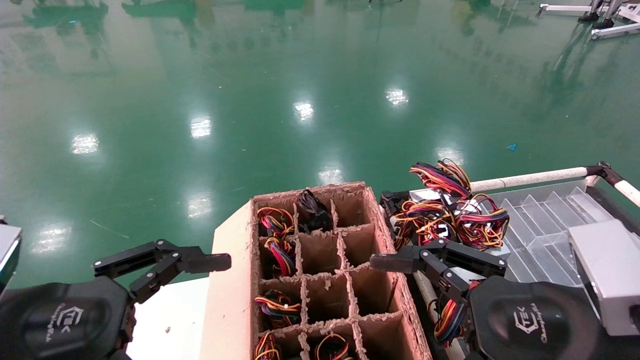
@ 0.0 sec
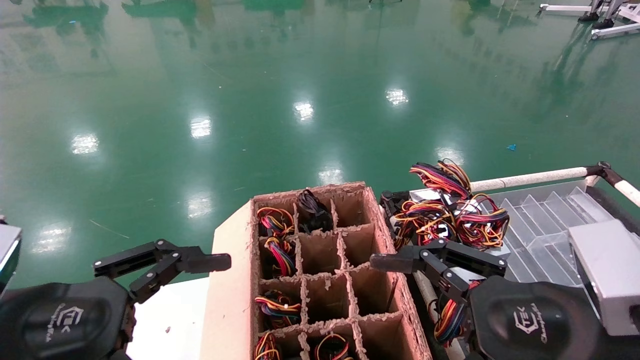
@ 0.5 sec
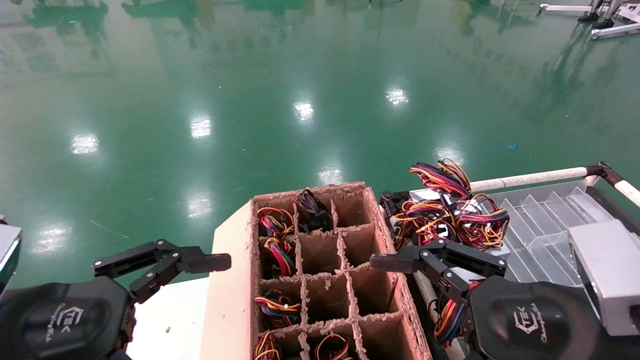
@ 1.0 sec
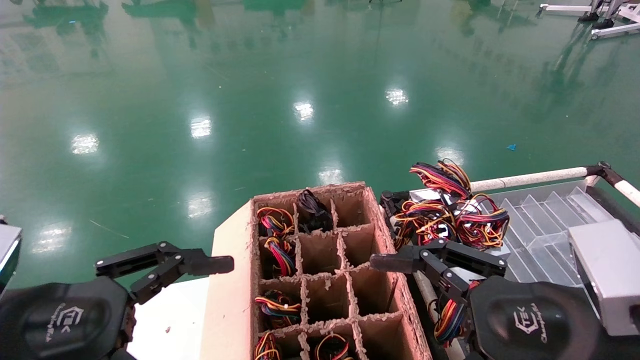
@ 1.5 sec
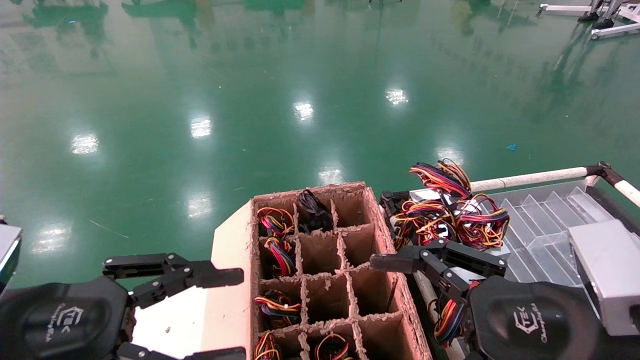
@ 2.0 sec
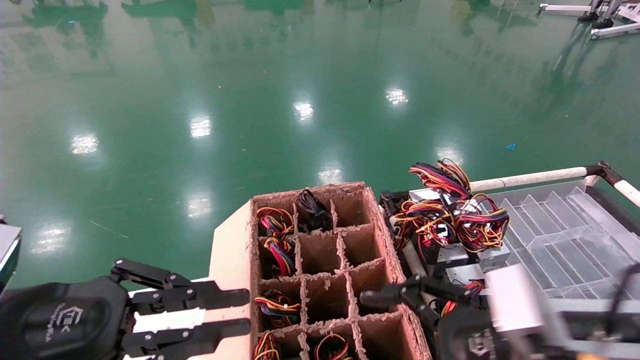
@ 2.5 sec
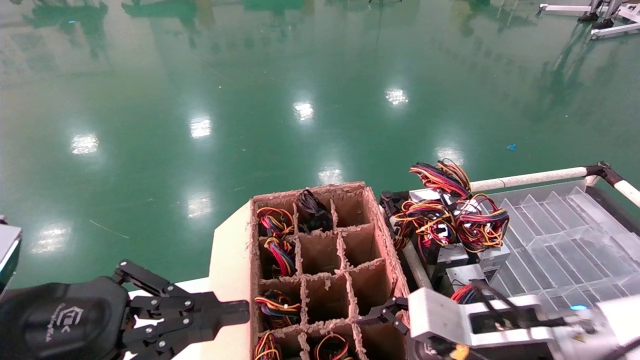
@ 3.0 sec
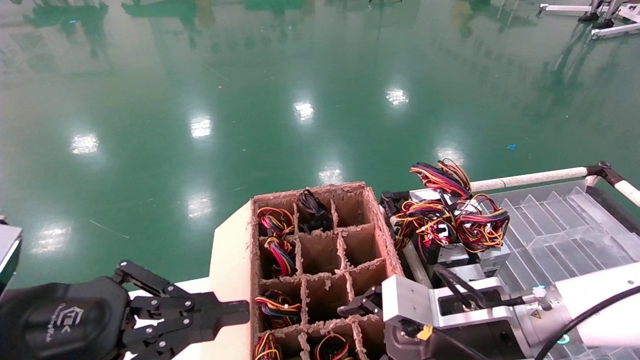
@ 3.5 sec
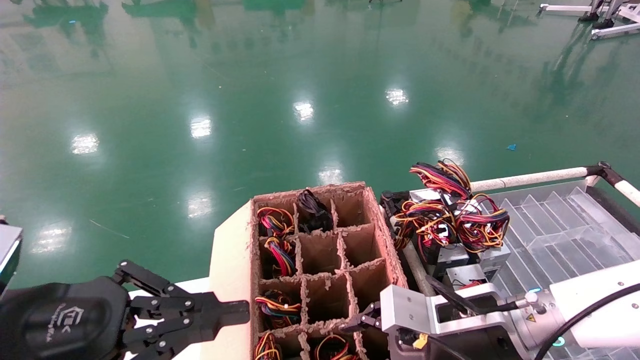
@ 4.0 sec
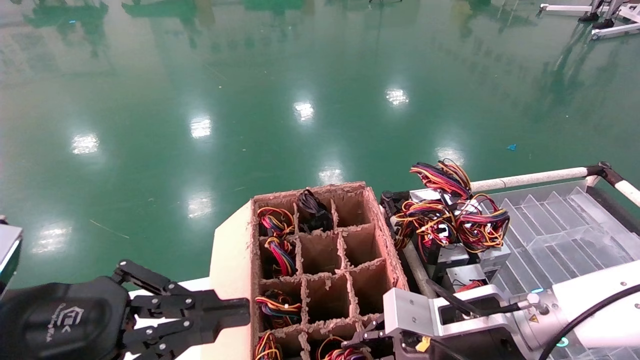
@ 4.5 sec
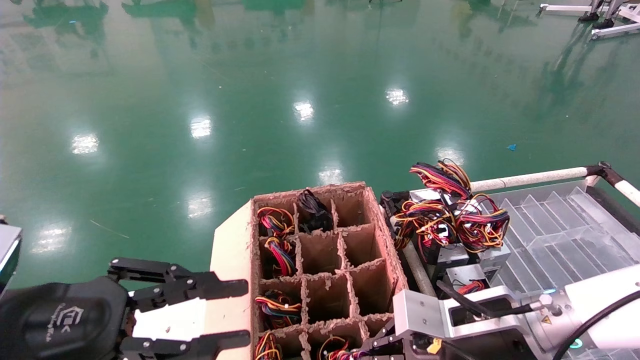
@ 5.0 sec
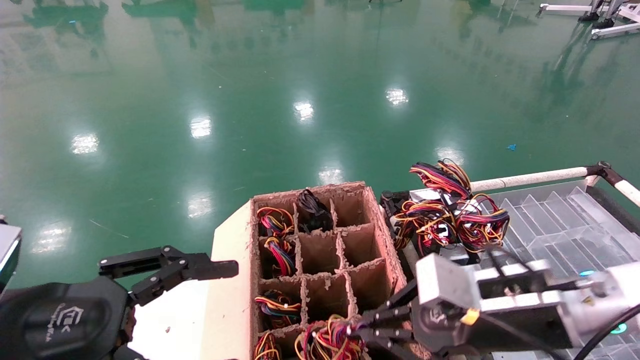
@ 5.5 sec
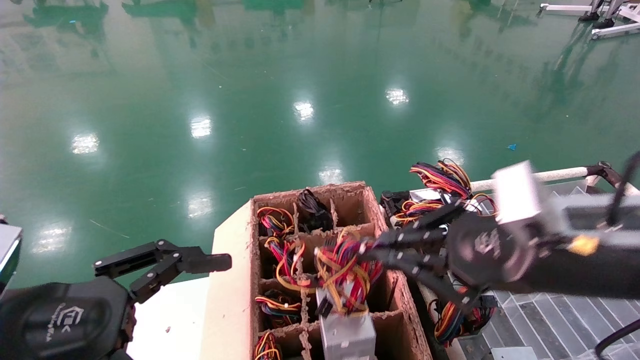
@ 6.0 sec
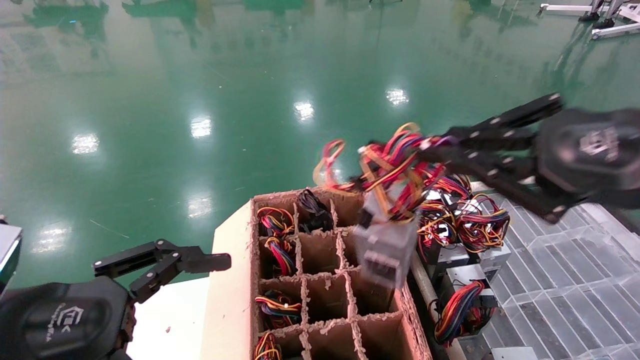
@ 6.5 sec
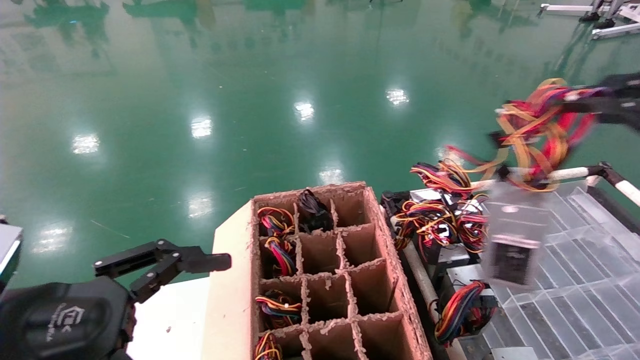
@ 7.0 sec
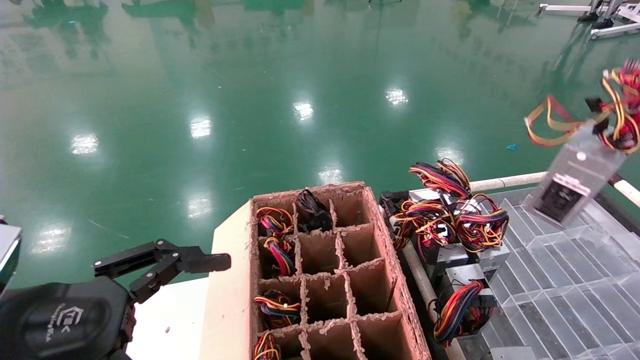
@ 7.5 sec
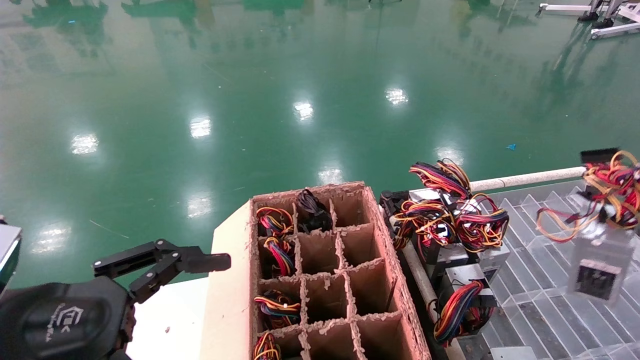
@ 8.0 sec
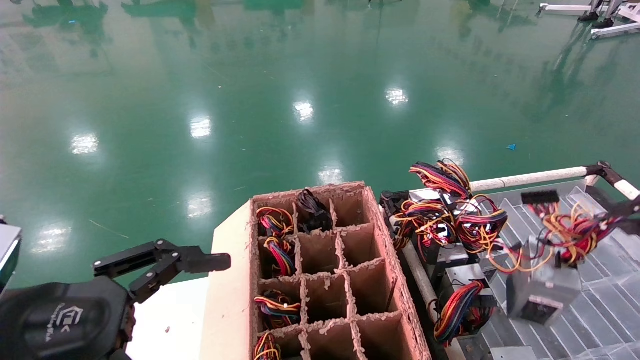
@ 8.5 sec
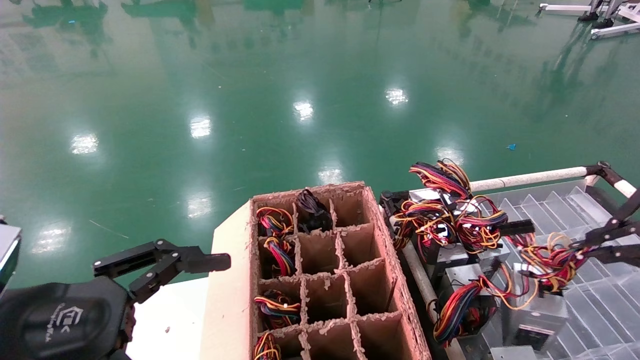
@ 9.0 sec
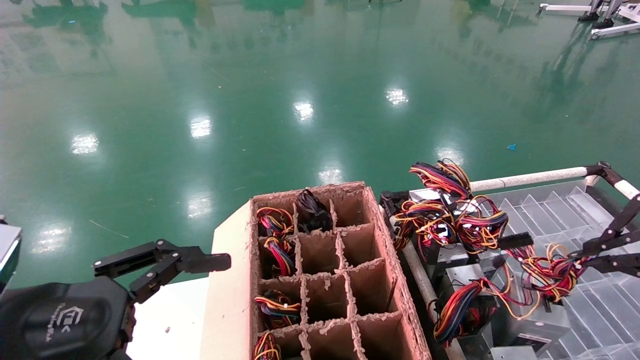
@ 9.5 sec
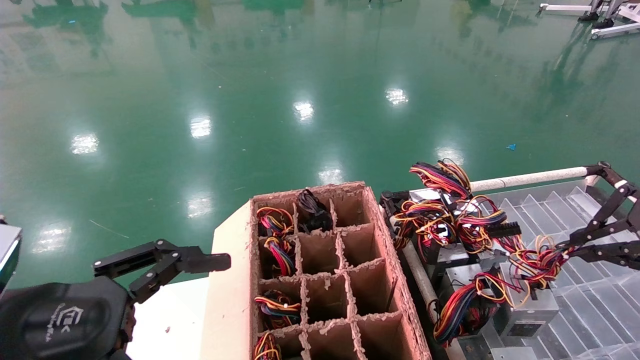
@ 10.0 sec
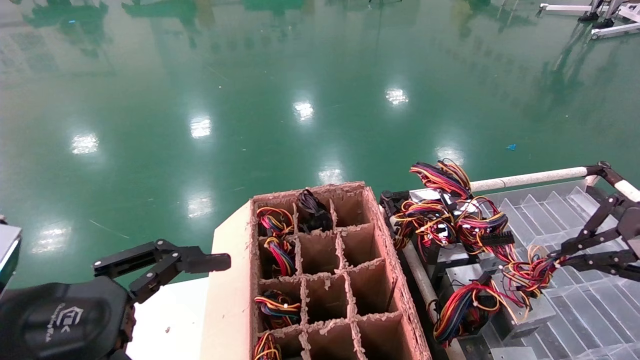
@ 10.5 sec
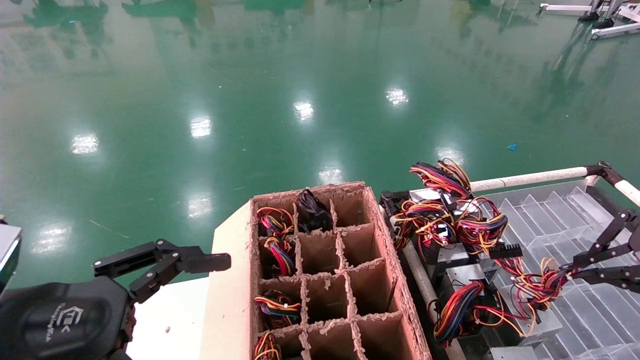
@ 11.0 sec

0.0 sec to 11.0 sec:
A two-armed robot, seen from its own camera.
Step, 2.0 sec to 4.5 sec: Grab and lift the power supply from the large box.
0.0 sec to 2.0 sec: Neither gripper changes place.
2.0 sec to 3.5 sec: The left gripper closes. The right gripper goes roughly 15 cm forward and downward.
3.5 sec to 5.5 sec: The right gripper shifts by about 5 cm, and closes, while the left gripper opens up.
5.5 sec to 7.5 sec: The left gripper opens its fingers. Meanwhile the right gripper heads upward, to the right and backward, covering about 35 cm.
7.5 sec to 9.0 sec: The right gripper travels downward and forward by some 10 cm.
9.0 sec to 11.0 sec: The right gripper ends up roughly 5 cm from where it was.

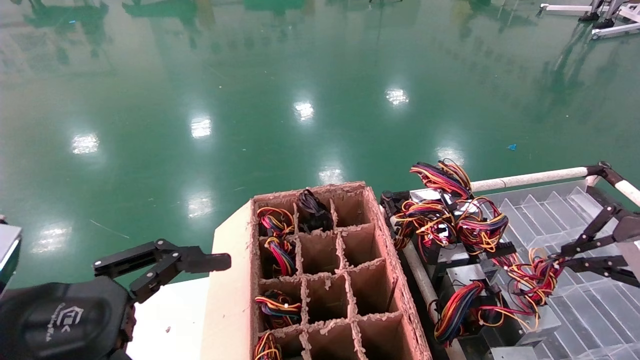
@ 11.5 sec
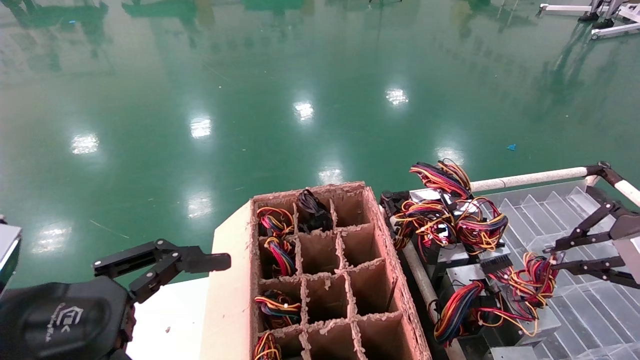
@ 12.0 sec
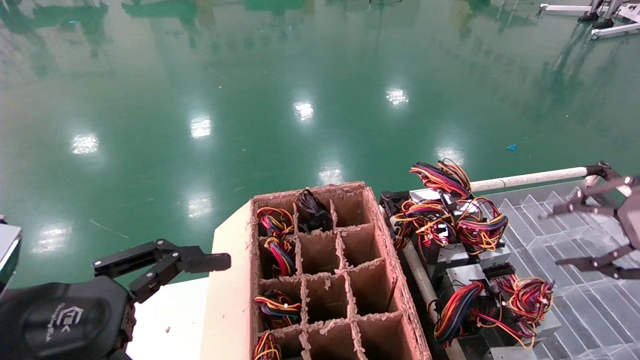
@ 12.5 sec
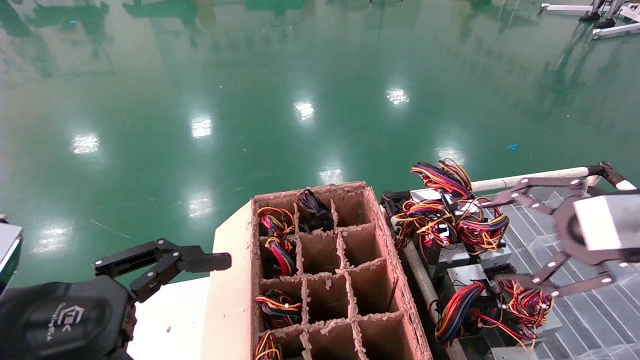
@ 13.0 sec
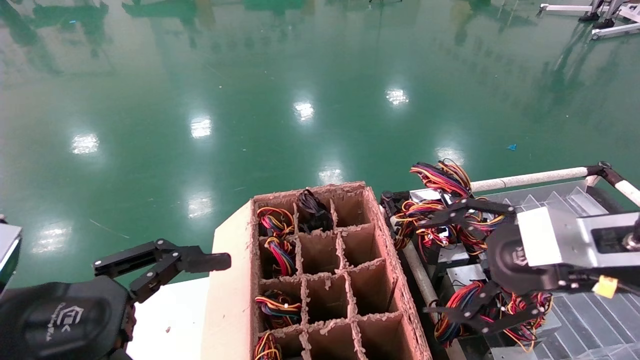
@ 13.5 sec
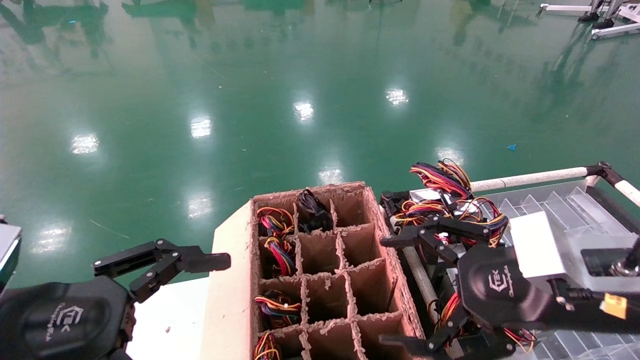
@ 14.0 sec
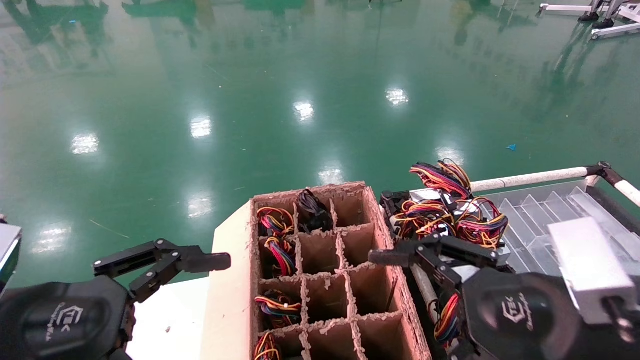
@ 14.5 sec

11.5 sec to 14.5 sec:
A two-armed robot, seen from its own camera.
11.5 sec to 13.0 sec: The right gripper heads to the left, covering roughly 5 cm, and opens its fingers.
13.0 sec to 14.5 sec: The right gripper moves to the left, downward and backward, about 15 cm.

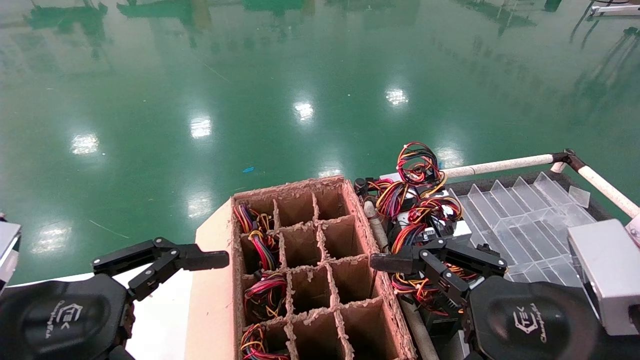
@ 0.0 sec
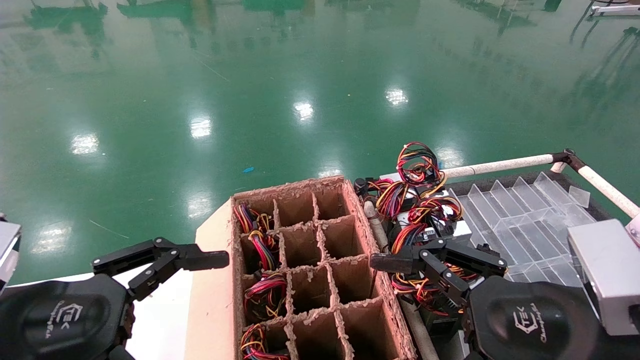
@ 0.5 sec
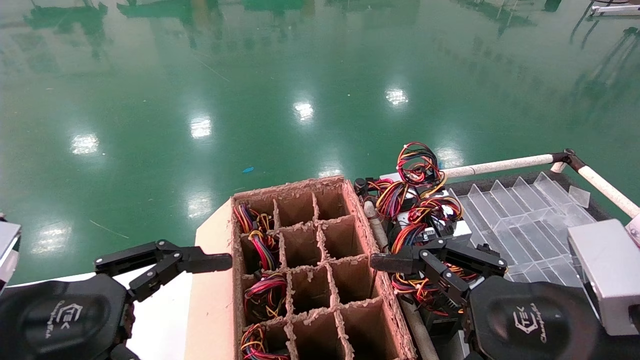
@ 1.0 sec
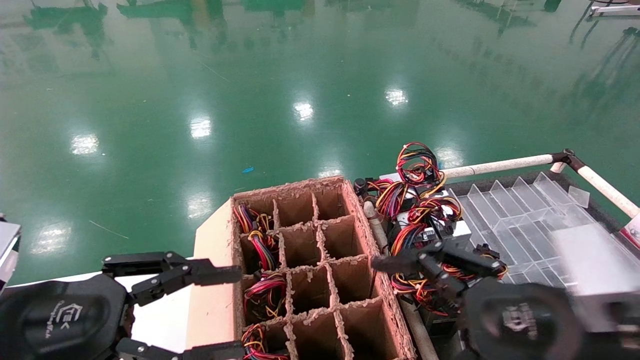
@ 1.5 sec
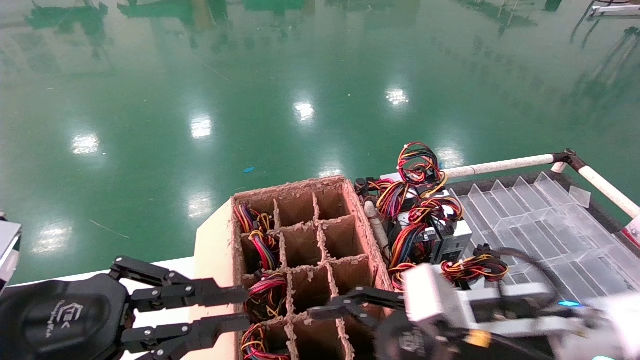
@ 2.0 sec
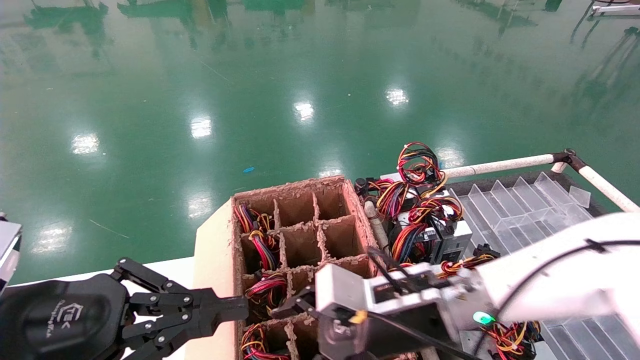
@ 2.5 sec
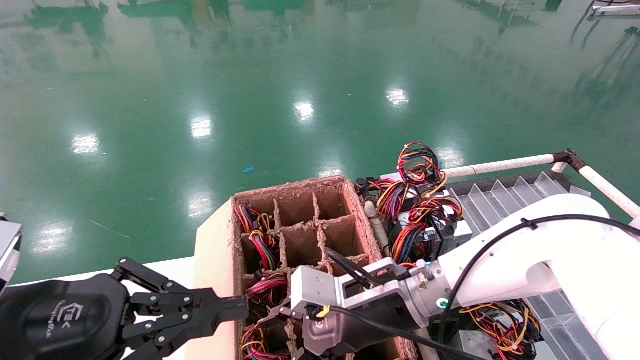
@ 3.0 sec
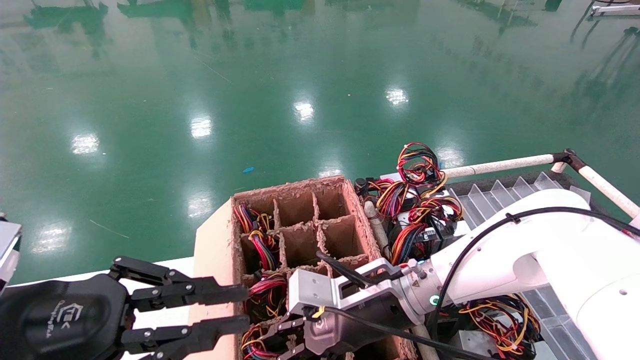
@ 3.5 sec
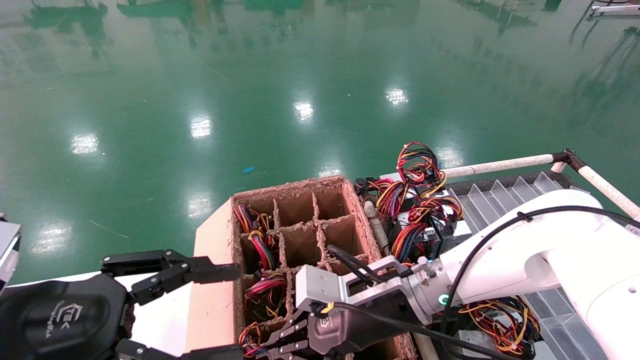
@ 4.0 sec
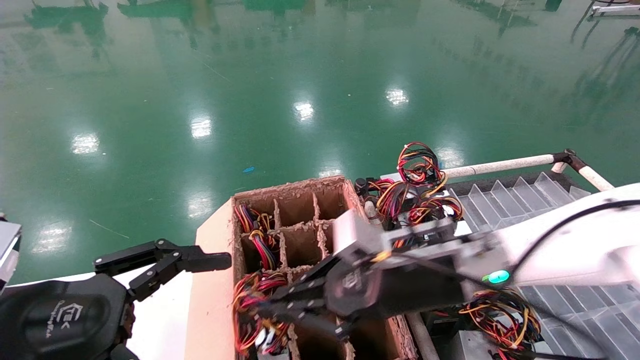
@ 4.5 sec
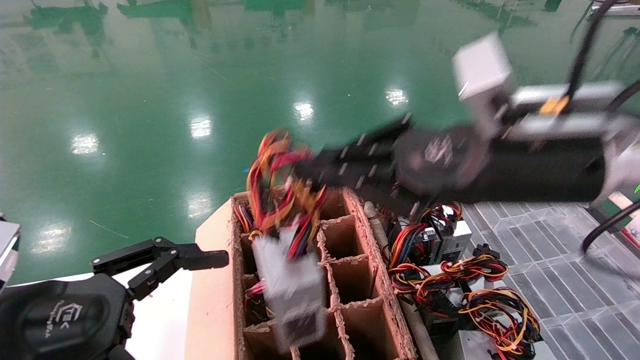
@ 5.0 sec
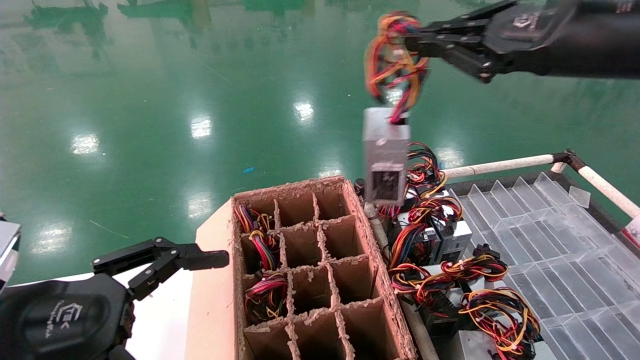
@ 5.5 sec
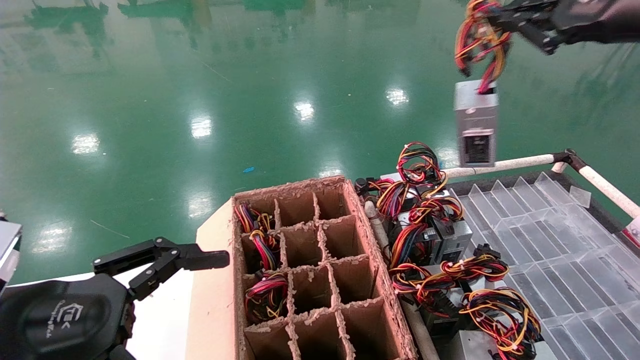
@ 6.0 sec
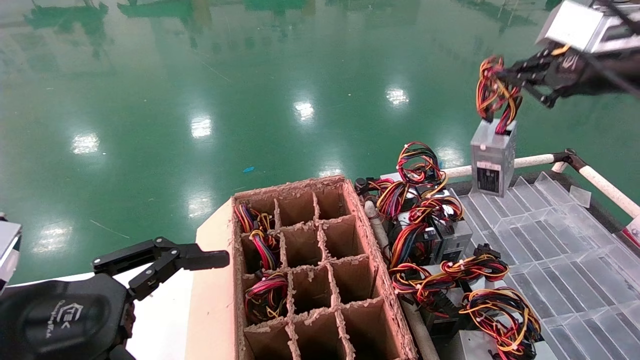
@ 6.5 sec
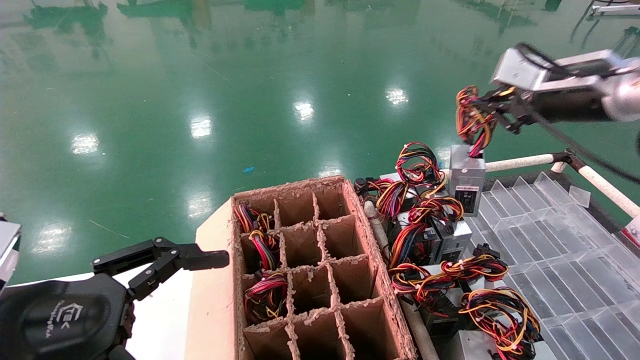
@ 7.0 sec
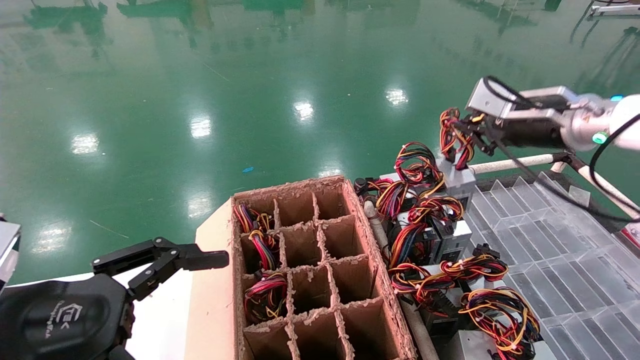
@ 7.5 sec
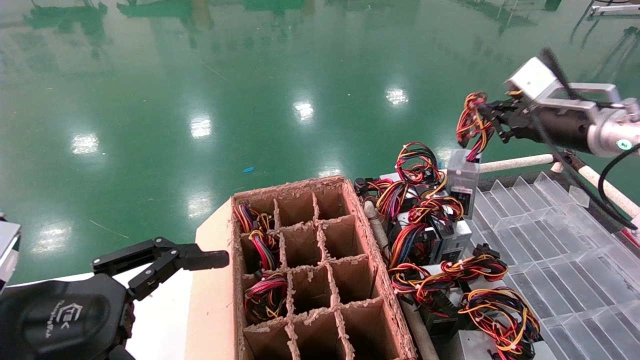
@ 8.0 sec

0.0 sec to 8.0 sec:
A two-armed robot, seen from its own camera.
Step, 1.5 sec to 4.0 sec: Grab and lift the power supply from the large box.
0.0 sec to 2.0 sec: The right gripper shifts approximately 10 cm forward and to the left. The left gripper closes up.
2.0 sec to 4.0 sec: The right gripper shifts approximately 15 cm forward and to the left, and closes its fingers.
4.0 sec to 6.0 sec: The right gripper heads upward and to the right, covering roughly 40 cm. Meanwhile the left gripper opens up.
6.0 sec to 8.0 sec: The right gripper shifts approximately 15 cm downward and forward.
